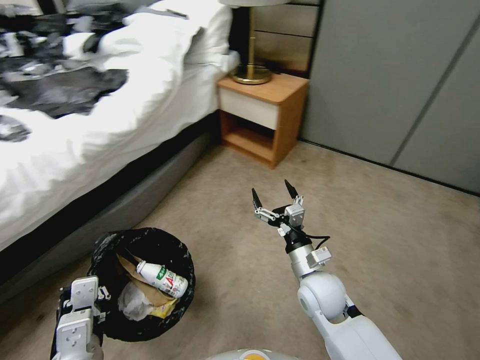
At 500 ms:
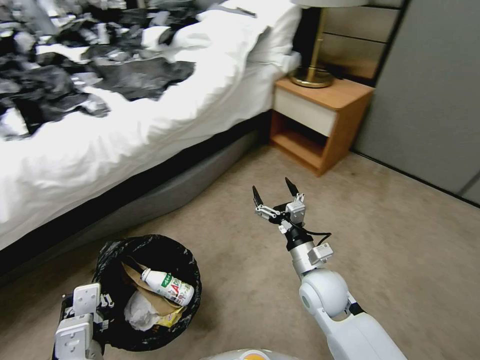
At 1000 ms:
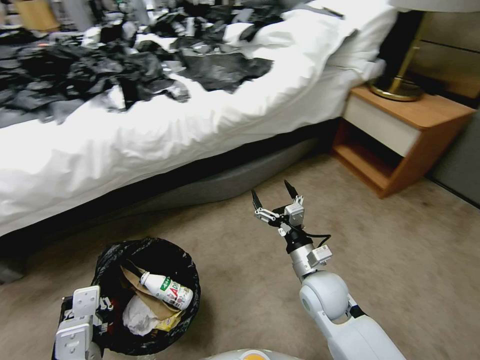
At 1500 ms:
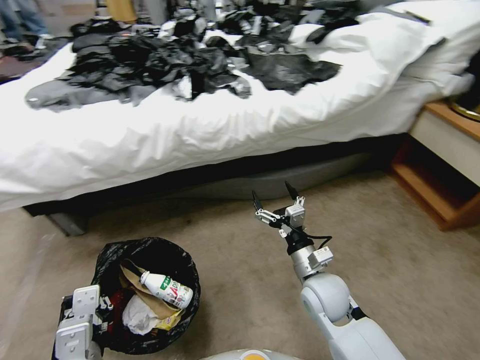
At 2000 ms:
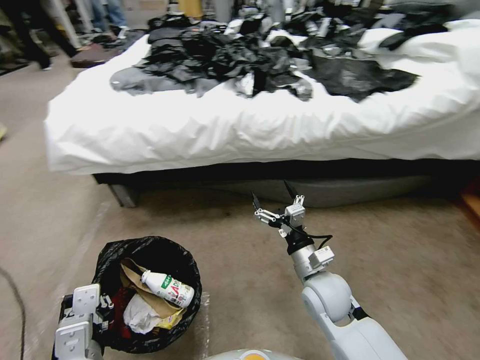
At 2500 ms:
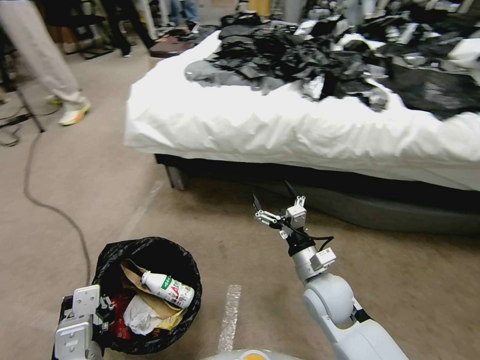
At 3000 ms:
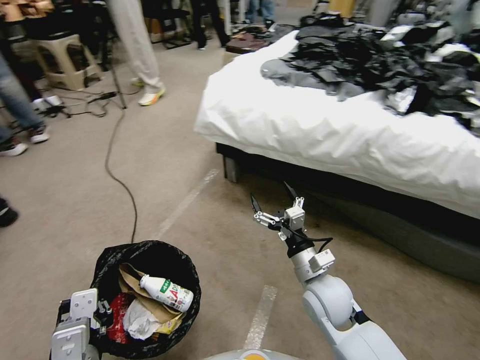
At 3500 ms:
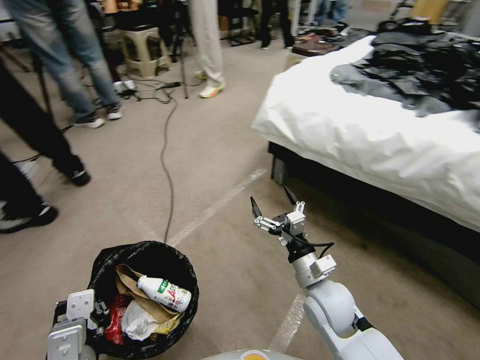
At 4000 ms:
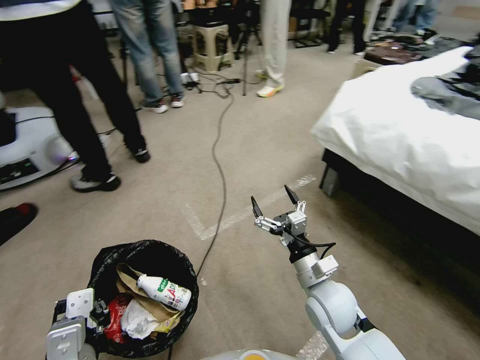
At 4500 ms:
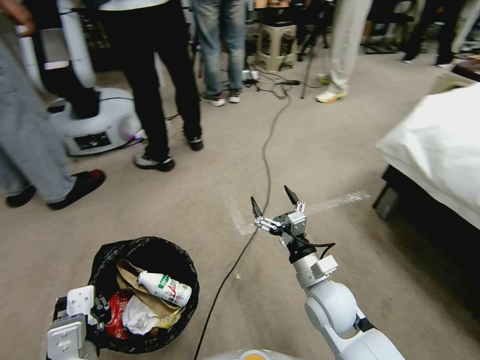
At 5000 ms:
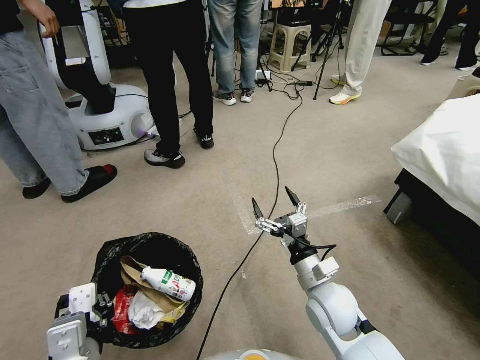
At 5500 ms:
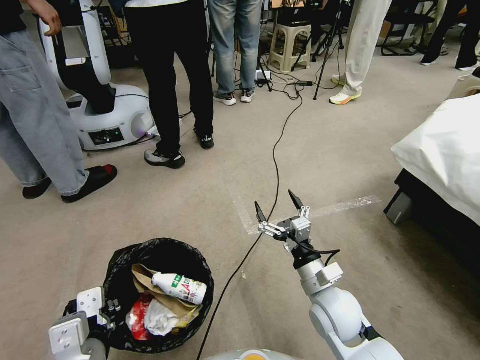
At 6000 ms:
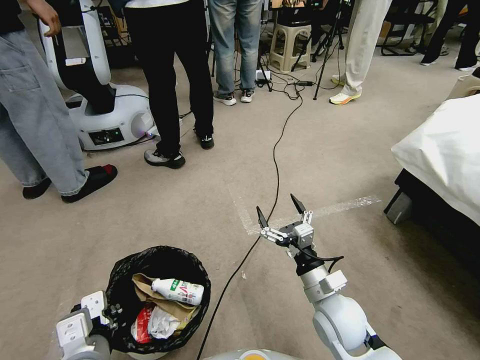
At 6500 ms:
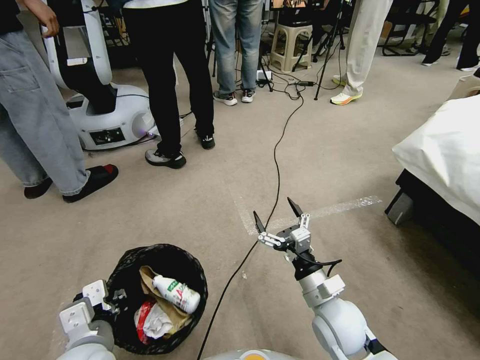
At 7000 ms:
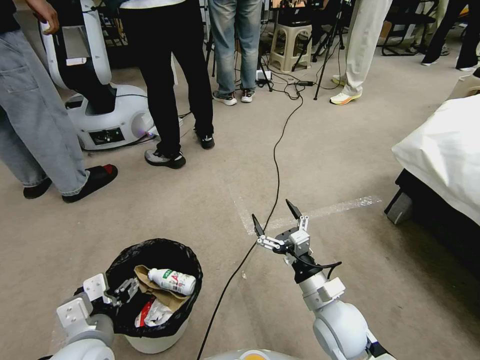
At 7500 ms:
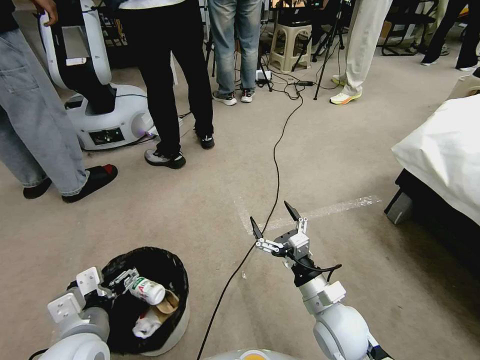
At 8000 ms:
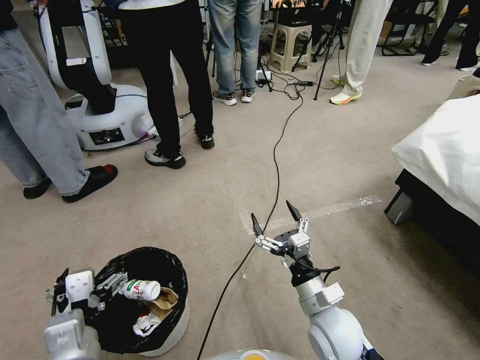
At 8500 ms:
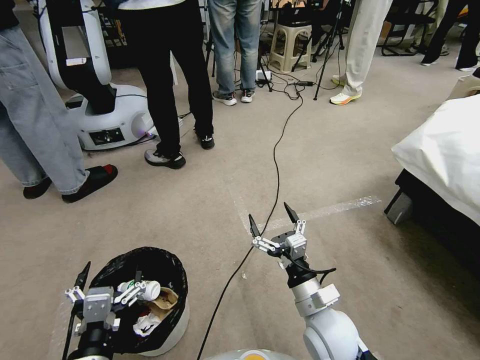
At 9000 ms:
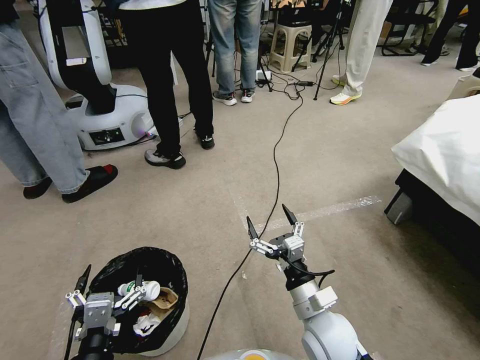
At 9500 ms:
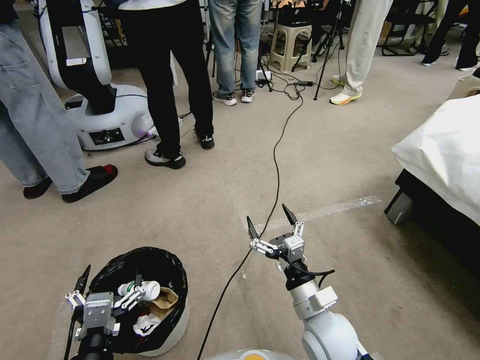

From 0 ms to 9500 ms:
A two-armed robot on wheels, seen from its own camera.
Task of the whole recording: Pick up the trash bin, then pick up the garbage from the floor and place it into the trash bin.
From 5500 ms to 7500 ms: The left gripper shifts by roughly 5 cm, and opens up.
From 7500 ms to 9500 ms: The left gripper heads backward, covering approximately 10 cm.

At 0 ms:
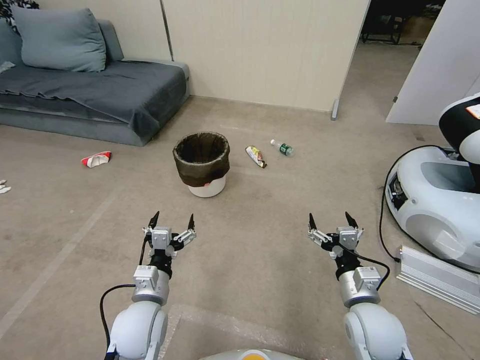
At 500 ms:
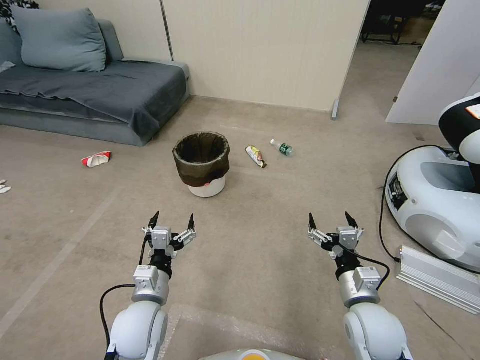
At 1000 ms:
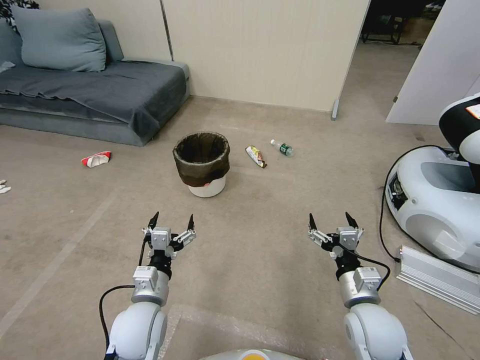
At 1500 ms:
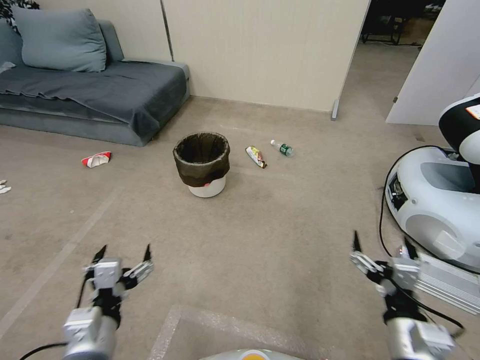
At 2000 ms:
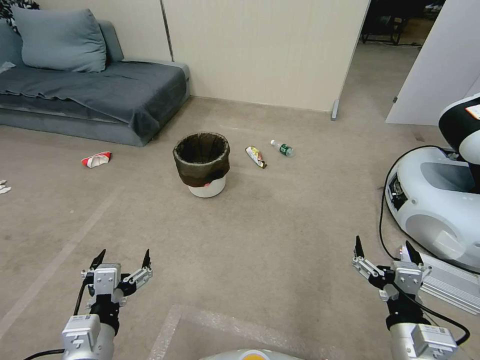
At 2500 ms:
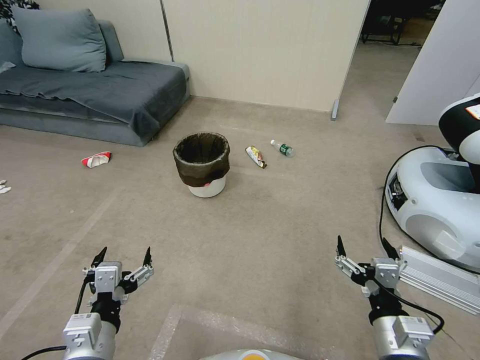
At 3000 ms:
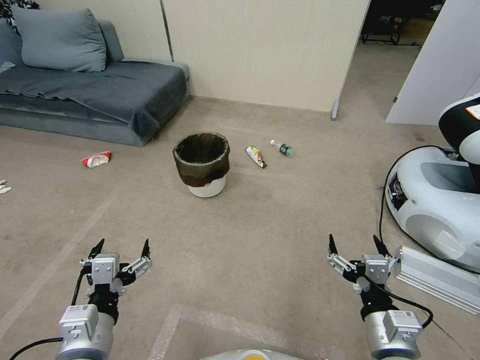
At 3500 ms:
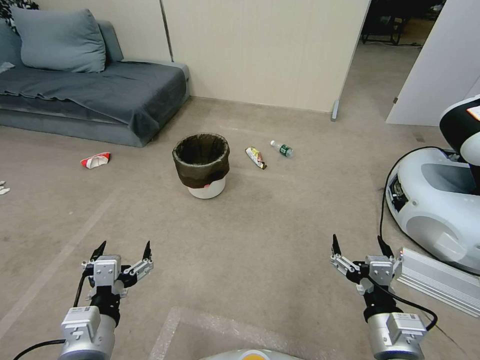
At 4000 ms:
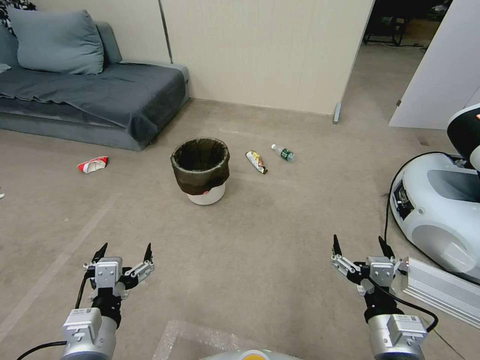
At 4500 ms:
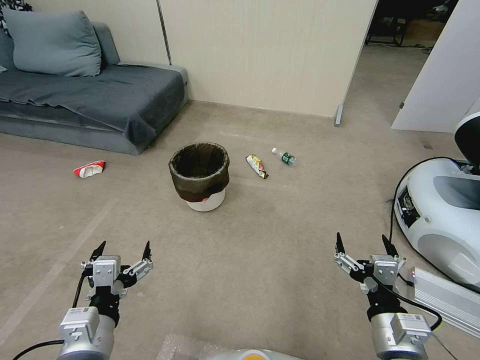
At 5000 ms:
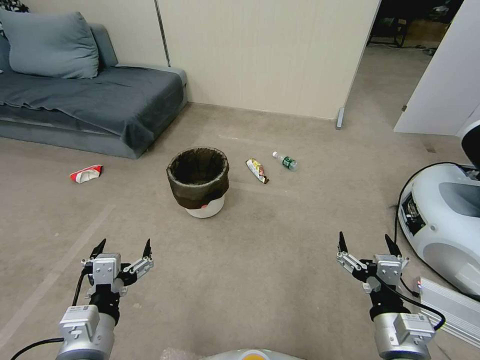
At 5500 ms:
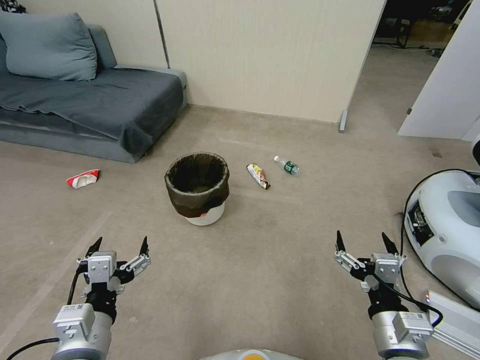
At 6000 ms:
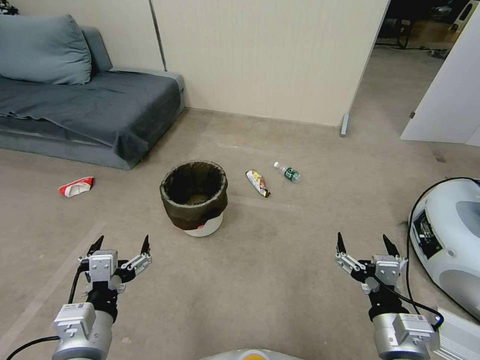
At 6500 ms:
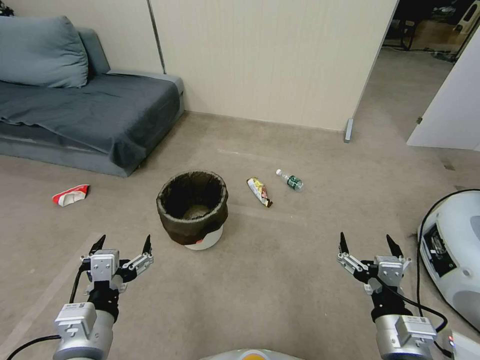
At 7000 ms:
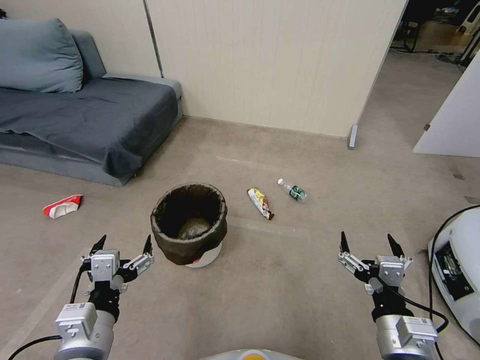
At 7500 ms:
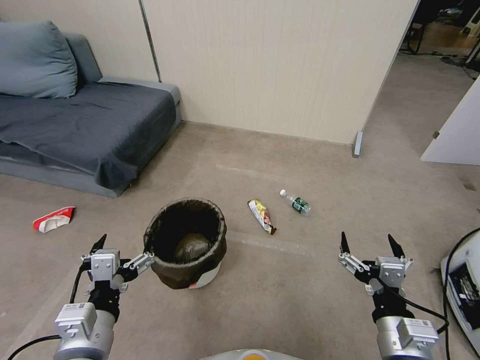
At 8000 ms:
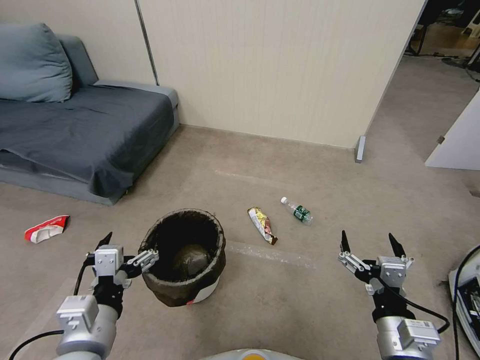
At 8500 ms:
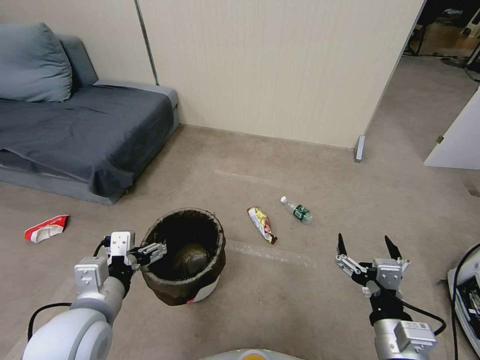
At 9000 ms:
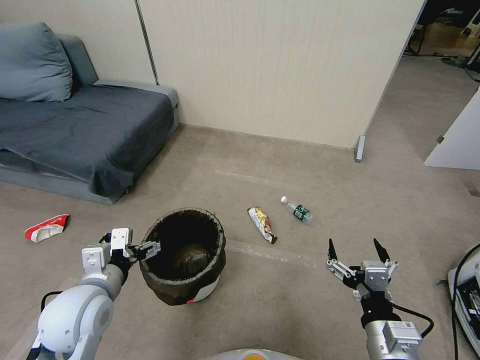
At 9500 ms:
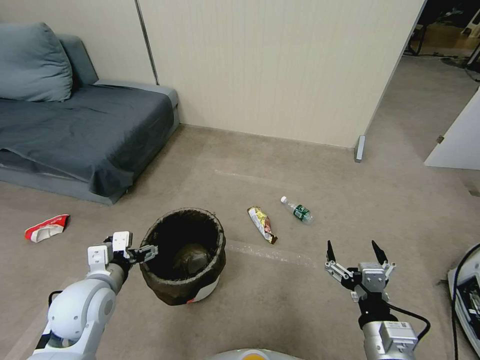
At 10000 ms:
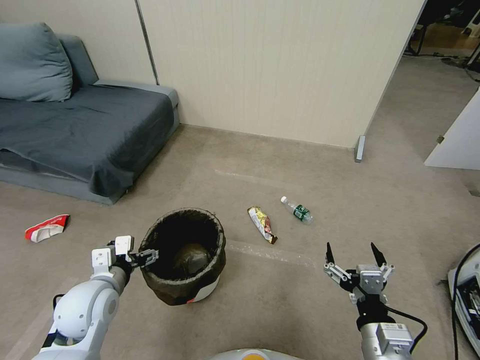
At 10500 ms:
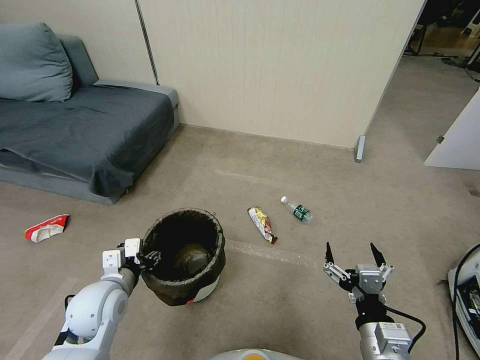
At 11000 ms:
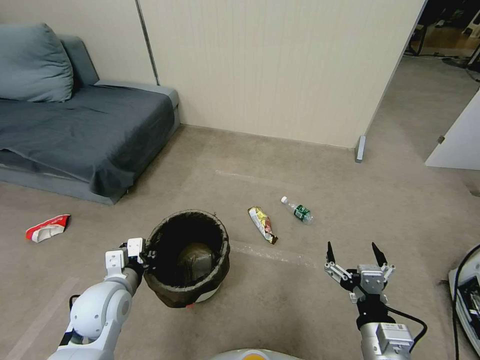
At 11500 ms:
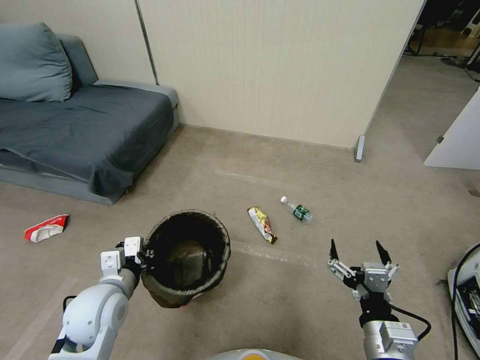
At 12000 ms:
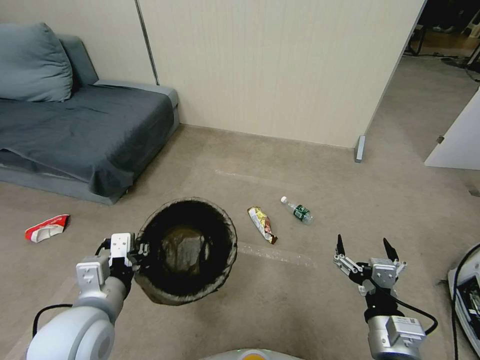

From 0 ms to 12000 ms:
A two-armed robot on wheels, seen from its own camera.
Task of the whole recording: Pick up the trash bin, then pick up the garbage from the floor and place it into the trash bin.
From 2000 ms to 4000 ms: The grippers move only a little.
From 8000 ms to 10000 ms: The left gripper moves forward, downward and to the left, some 15 cm.
From 10000 ms to 12000 ms: The left gripper moves upward, backward and to the right, some 10 cm, and closes up.

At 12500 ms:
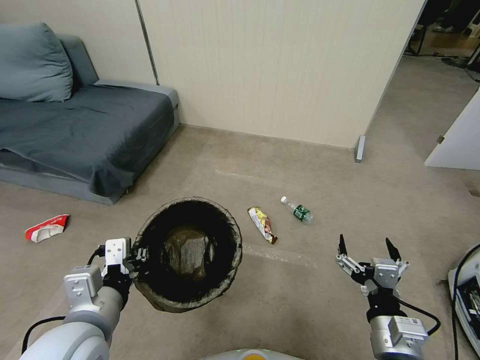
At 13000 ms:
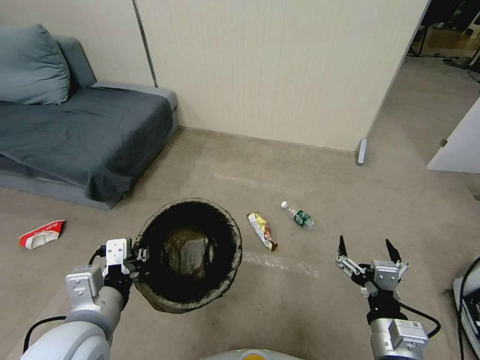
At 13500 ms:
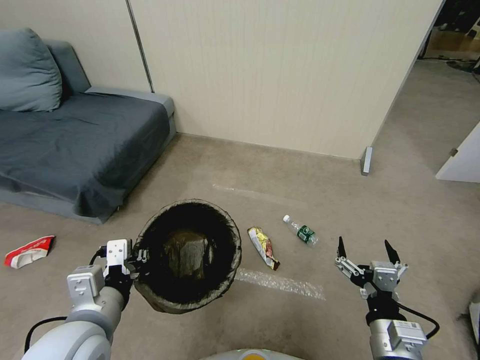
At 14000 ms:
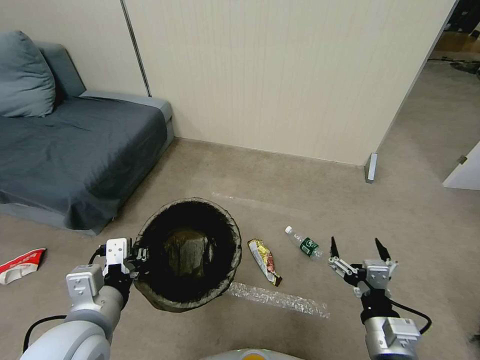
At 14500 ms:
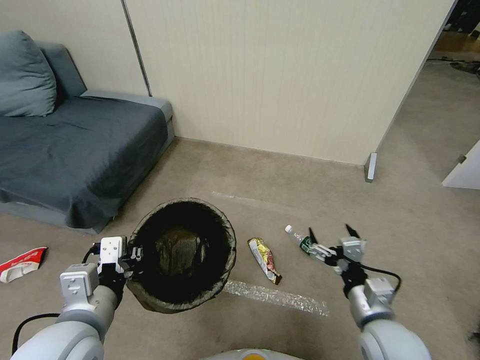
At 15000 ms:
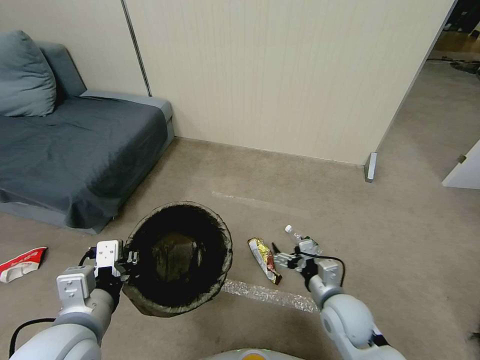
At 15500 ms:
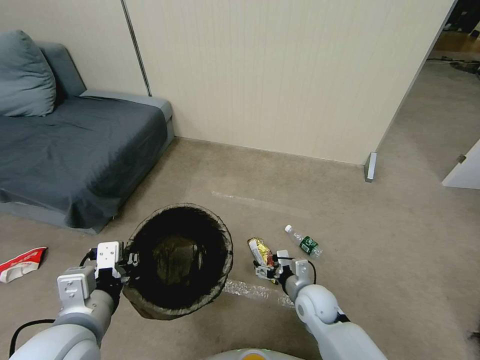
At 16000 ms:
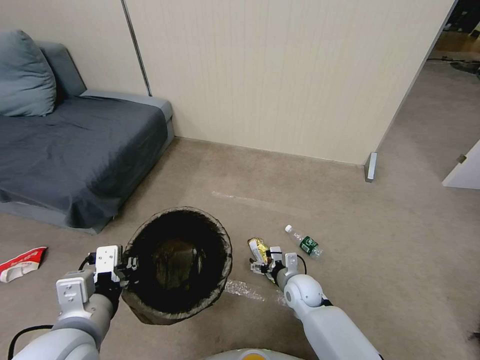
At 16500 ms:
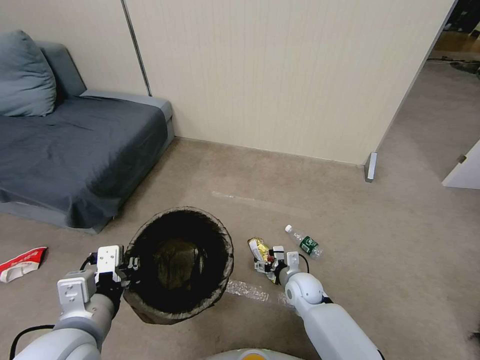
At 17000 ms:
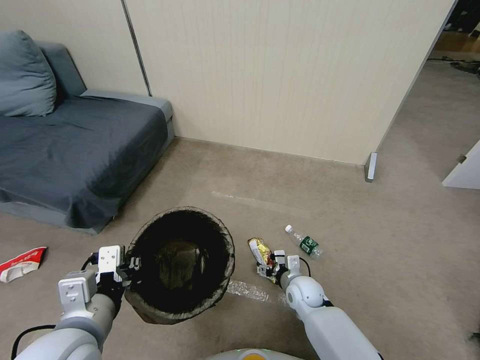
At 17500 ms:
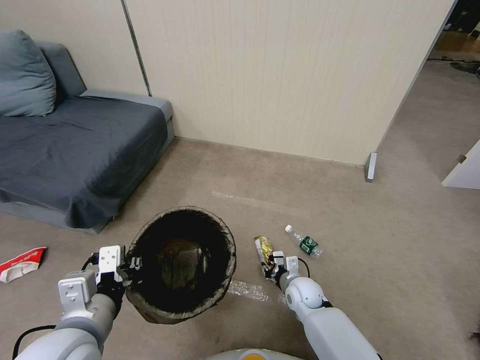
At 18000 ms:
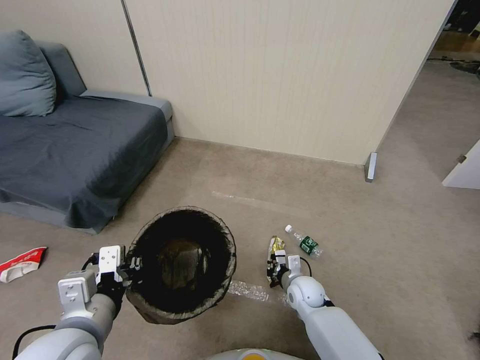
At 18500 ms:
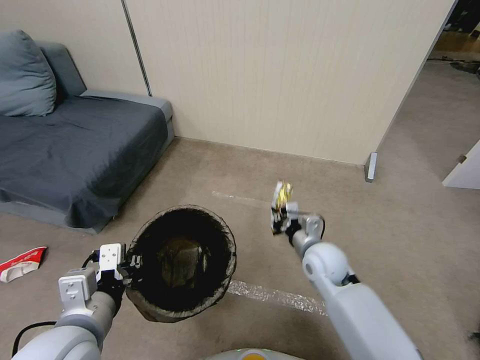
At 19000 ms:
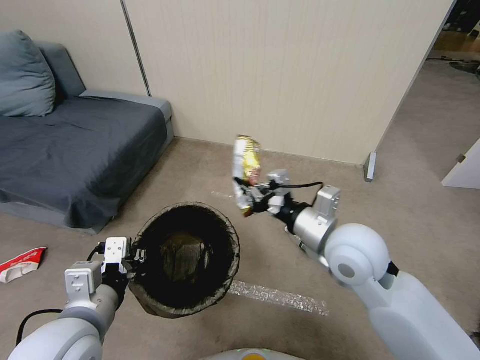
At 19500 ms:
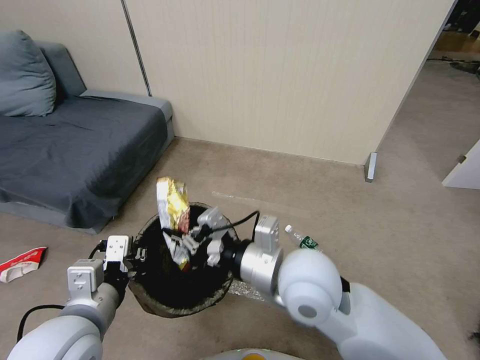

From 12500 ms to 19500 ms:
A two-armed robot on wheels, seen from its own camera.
Task of the whole recording: Pick up the trash bin, then pick up the garbage from the floor and place it into the trash bin.
From 12500 ms to 14500 ms: The right gripper moves forward, some 5 cm.
From 14500 ms to 16000 ms: The right gripper is displaced downward, forward and to the left by about 25 cm.
From 16000 ms to 17500 ms: The right gripper closes up.
From 17500 ms to 19500 ms: The right gripper is displaced upward by some 35 cm.
